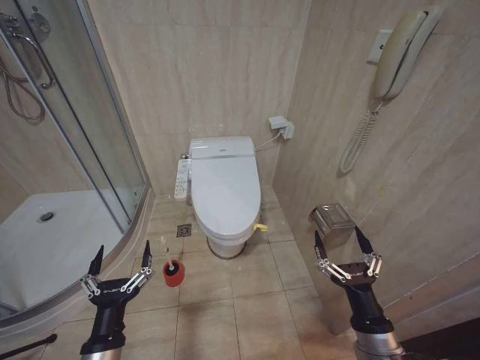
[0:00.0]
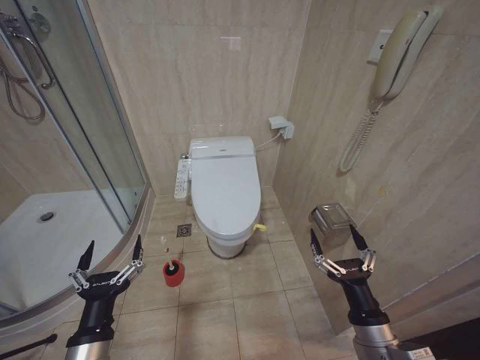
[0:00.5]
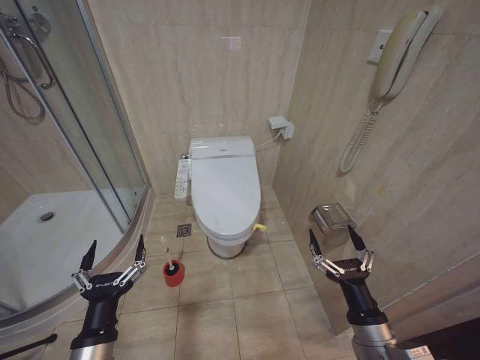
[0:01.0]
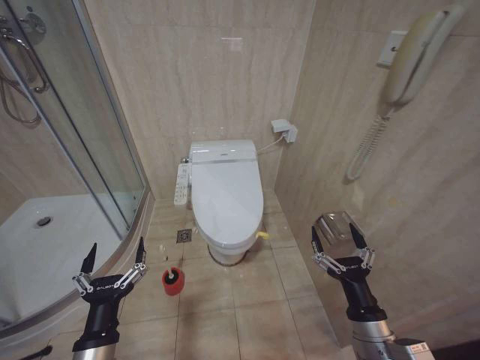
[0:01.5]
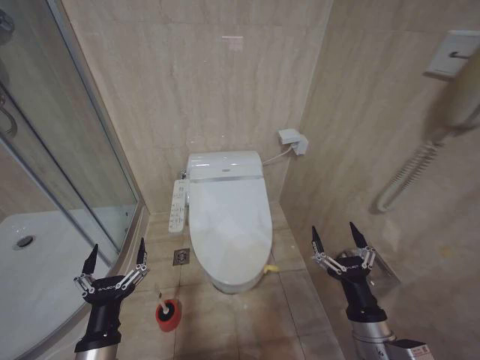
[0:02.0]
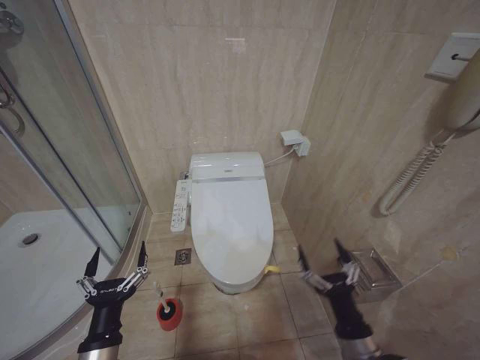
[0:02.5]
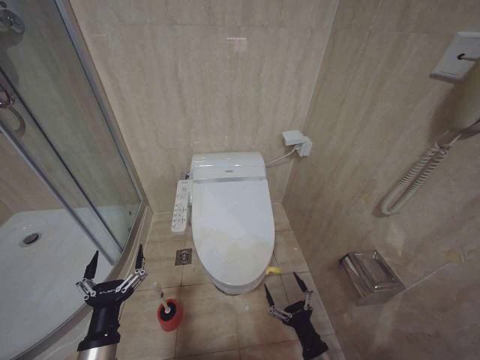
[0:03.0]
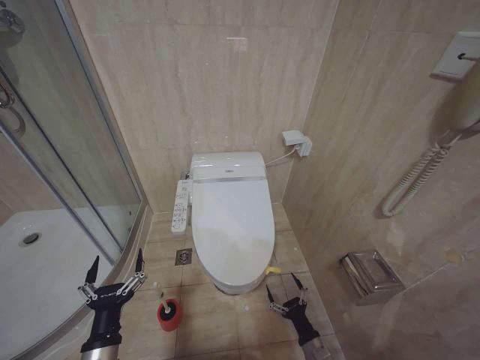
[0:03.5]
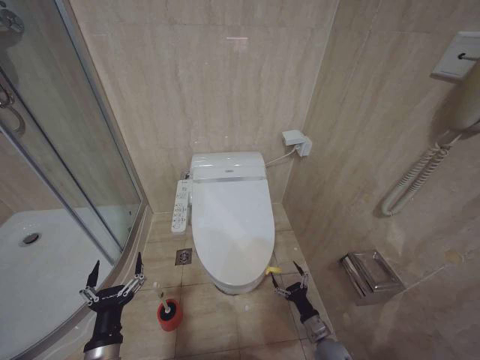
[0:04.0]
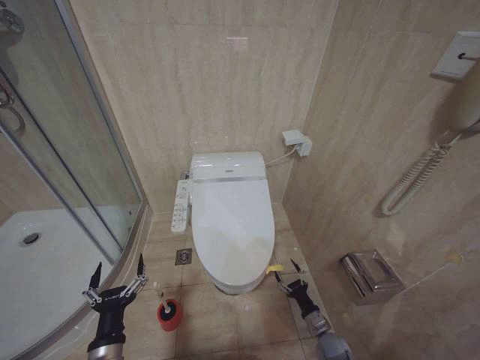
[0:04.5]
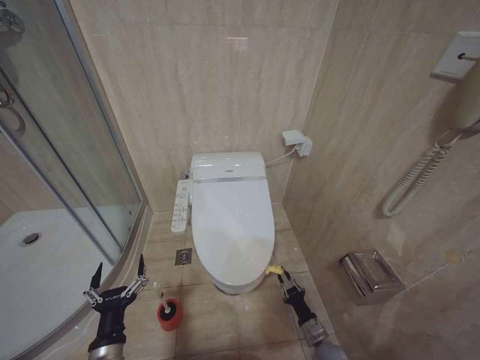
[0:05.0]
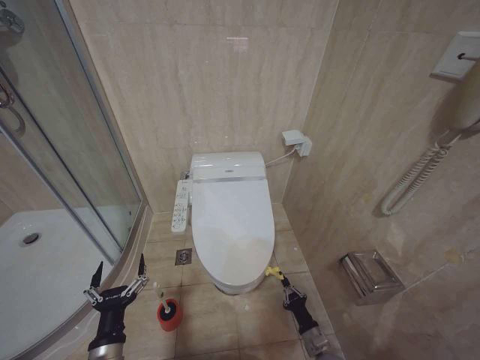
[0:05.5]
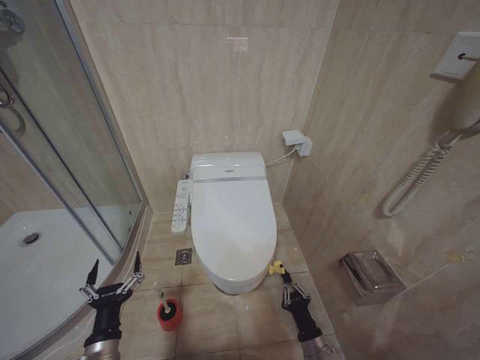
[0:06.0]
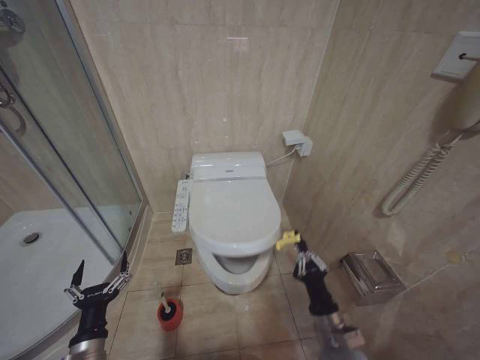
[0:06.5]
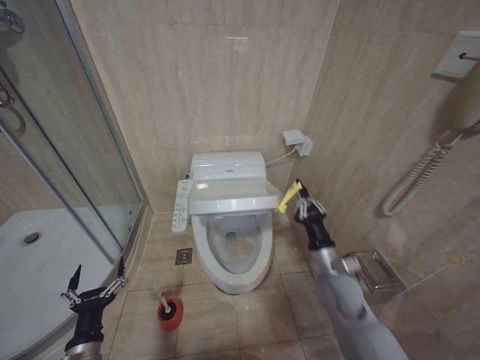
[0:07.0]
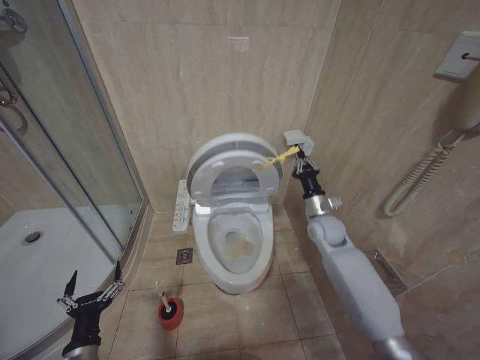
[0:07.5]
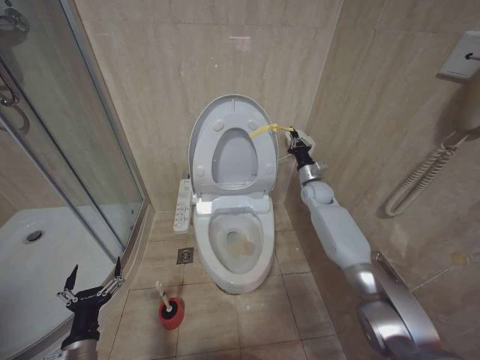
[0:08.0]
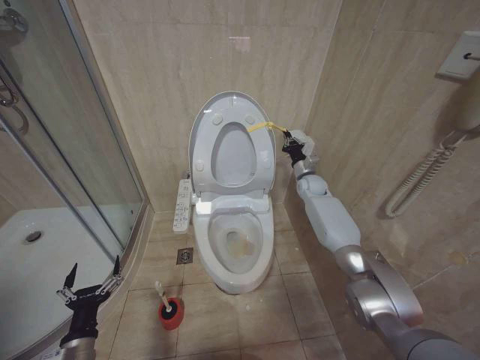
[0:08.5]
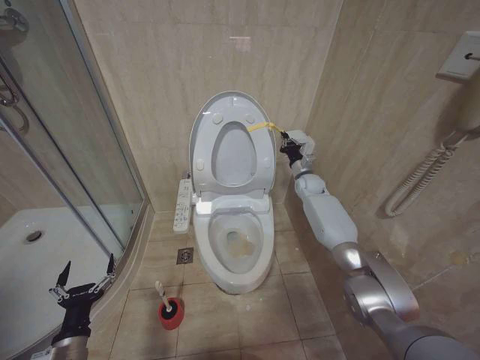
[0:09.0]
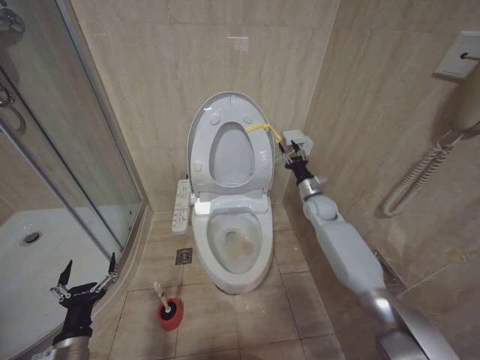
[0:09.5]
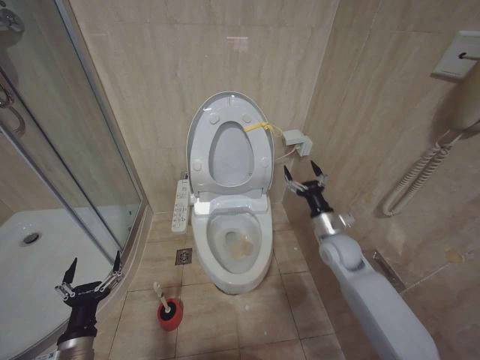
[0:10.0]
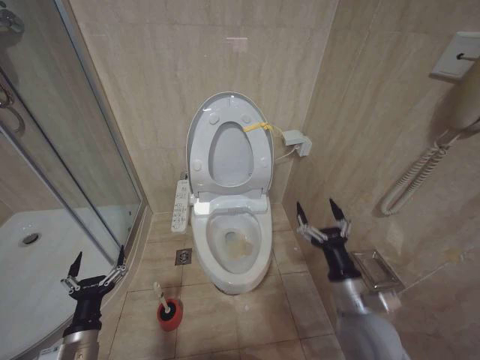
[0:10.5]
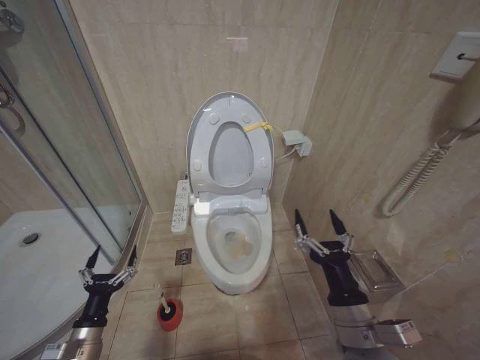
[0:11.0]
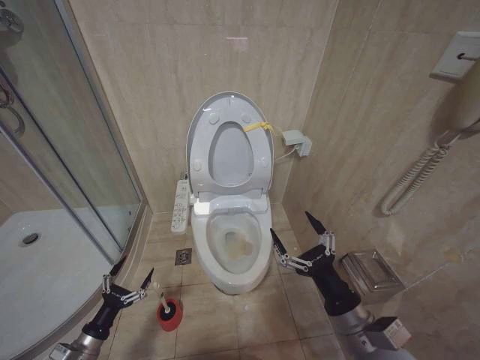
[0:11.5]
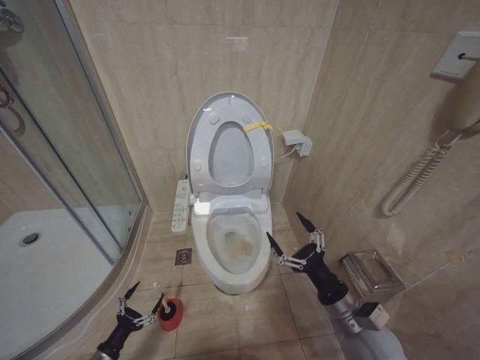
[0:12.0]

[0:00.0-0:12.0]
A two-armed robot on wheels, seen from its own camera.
Task of the whole recording: Open the toilet lid, clean the toilet bowl with a toilet brush, close the toilet lid, and flush.
0:02.0 to 0:04.0: The left gripper travels downward by roughly 5 cm, while the right gripper goes some 30 cm downward.
0:04.0 to 0:06.0: The right gripper shifts roughly 10 cm upward, backward and to the left, and closes.
0:06.0 to 0:08.0: The left gripper goes roughly 5 cm to the left. The right gripper shifts roughly 50 cm forward and upward.
0:08.0 to 0:10.0: The right gripper travels backward by some 15 cm, and opens up.
0:10.0 to 0:12.0: The right gripper heads backward, covering about 25 cm, while the left gripper heads downward and to the left, covering approximately 20 cm.

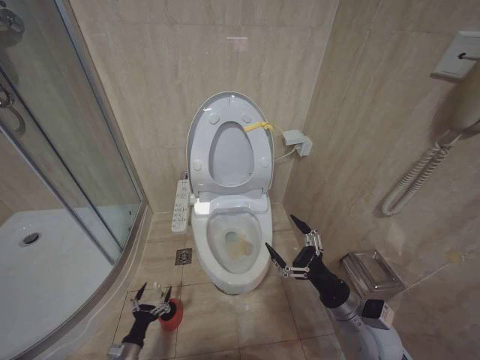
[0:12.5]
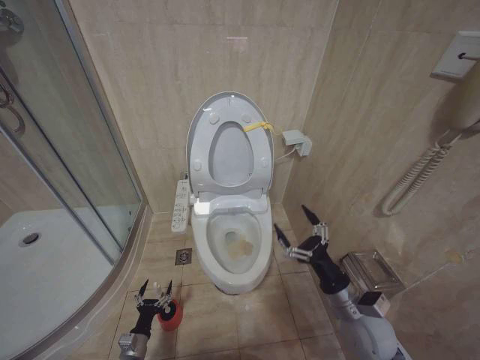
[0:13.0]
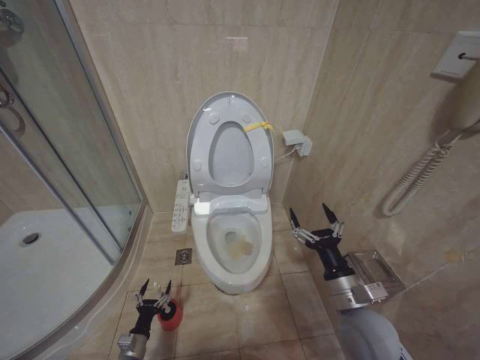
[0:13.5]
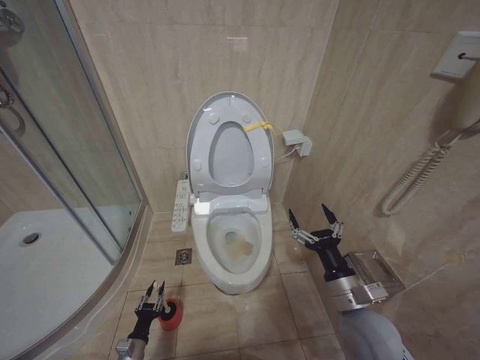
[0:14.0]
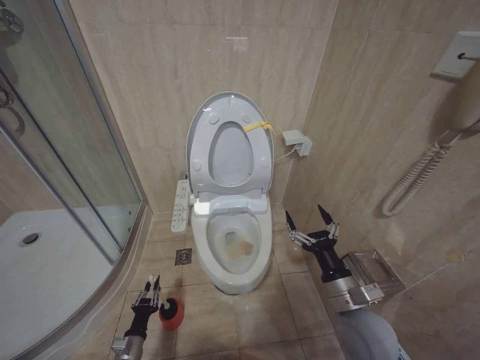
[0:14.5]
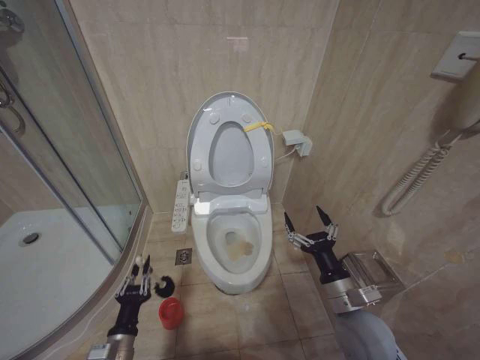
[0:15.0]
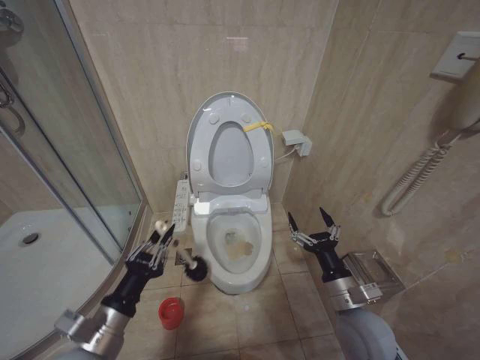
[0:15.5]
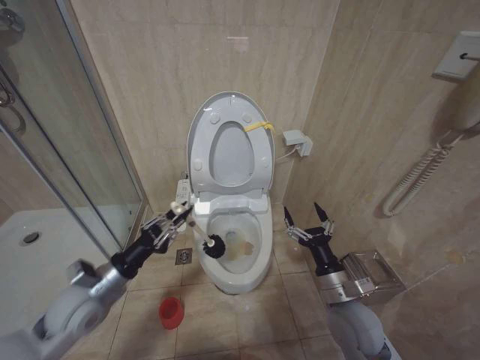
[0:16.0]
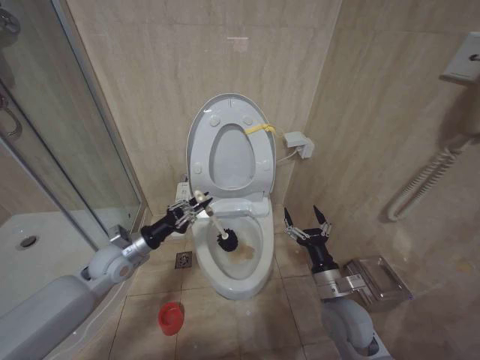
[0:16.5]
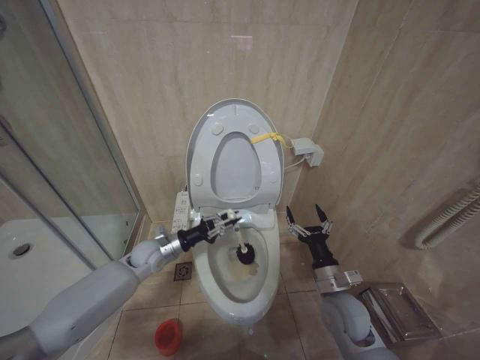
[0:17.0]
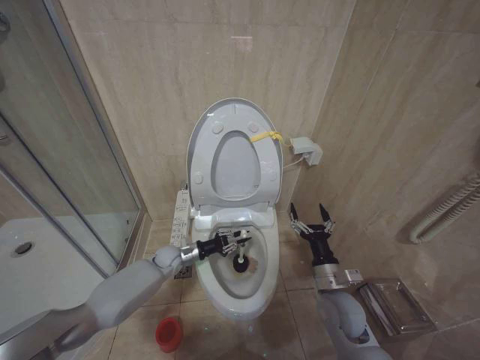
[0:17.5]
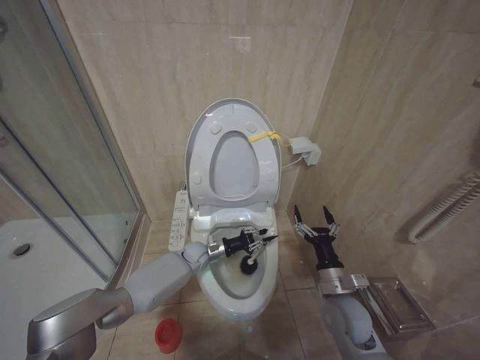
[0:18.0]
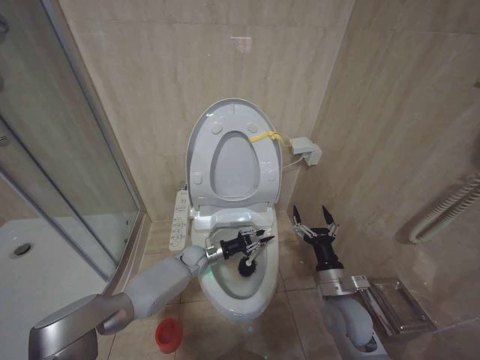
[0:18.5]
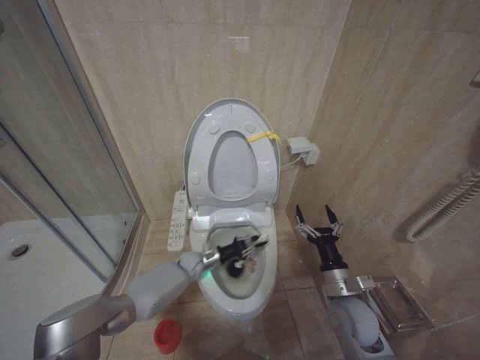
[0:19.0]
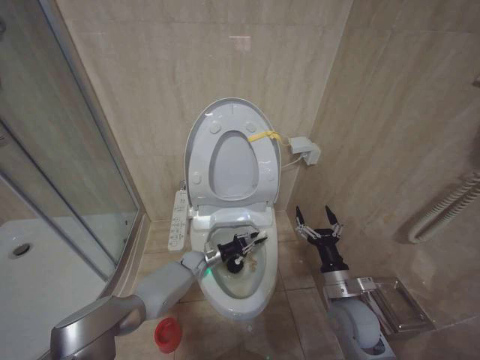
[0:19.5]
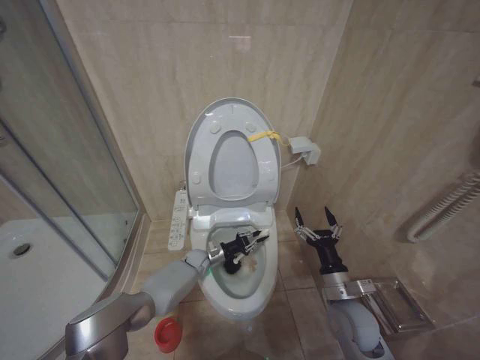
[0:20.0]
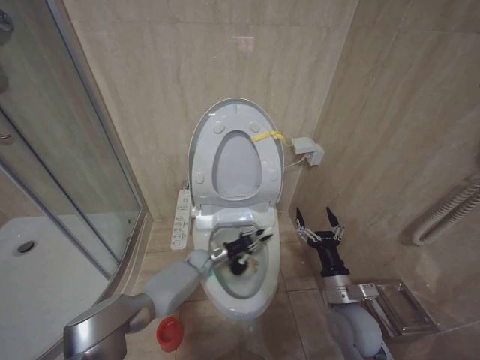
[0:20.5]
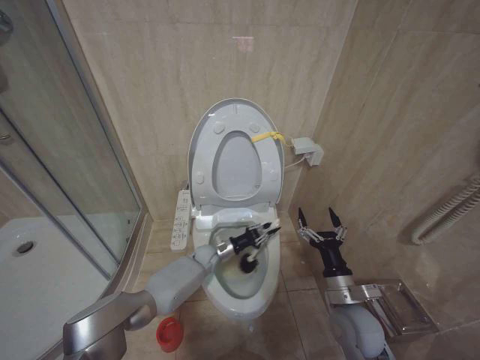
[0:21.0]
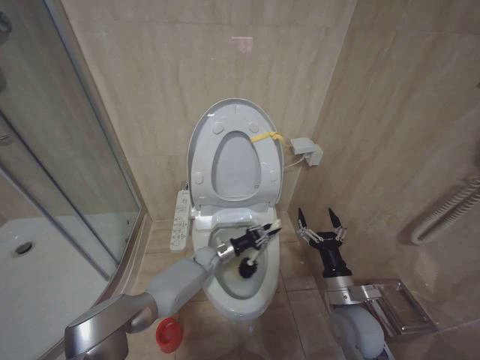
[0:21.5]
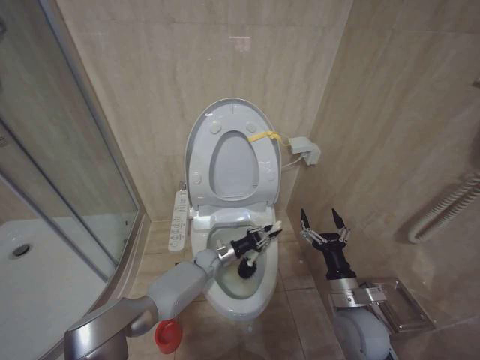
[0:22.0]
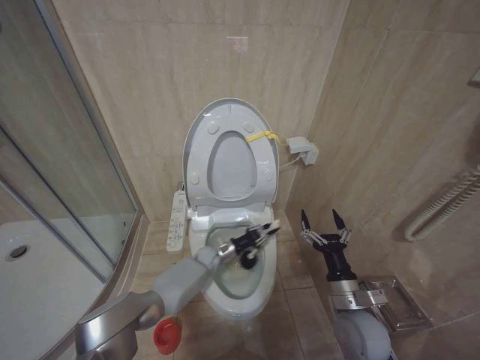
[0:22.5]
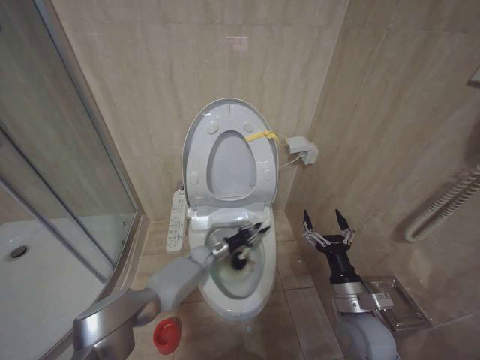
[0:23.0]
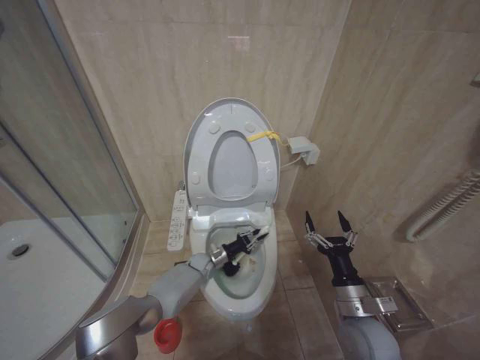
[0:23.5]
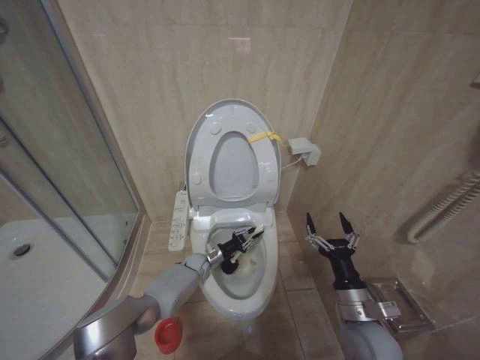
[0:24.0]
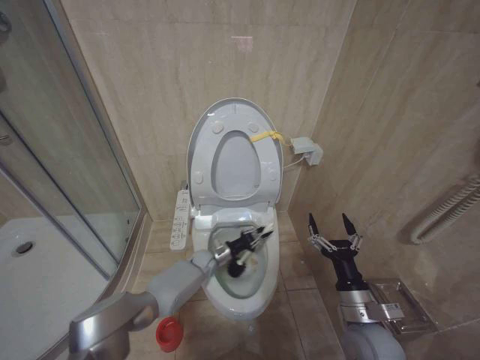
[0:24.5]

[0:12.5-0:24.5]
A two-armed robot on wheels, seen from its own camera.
Task of the whole recording: Open the toilet lid, clean the toilet bowl with a toilet brush, close the toilet lid, and flush.
0:12.5 to 0:14.5: The left gripper closes.
0:14.5 to 0:16.5: The left gripper heads upward and forward, covering some 35 cm. Meanwhile the right gripper ends up roughly 5 cm from where it was.
0:16.5 to 0:18.5: The left gripper goes approximately 30 cm to the right, downward and forward.
0:18.5 to 0:20.5: The grippers move only a little.
0:20.5 to 0:22.5: The left gripper heads to the right, covering approximately 5 cm.
0:22.5 to 0:24.5: The left gripper shifts by approximately 5 cm.

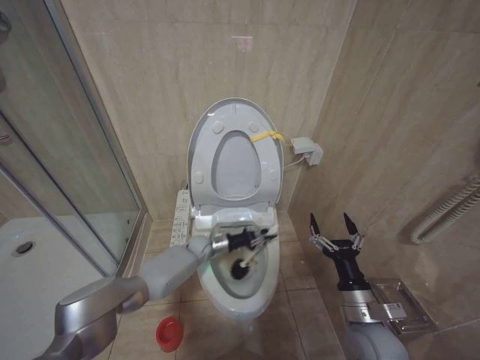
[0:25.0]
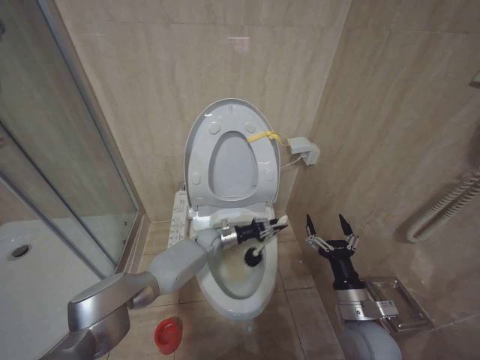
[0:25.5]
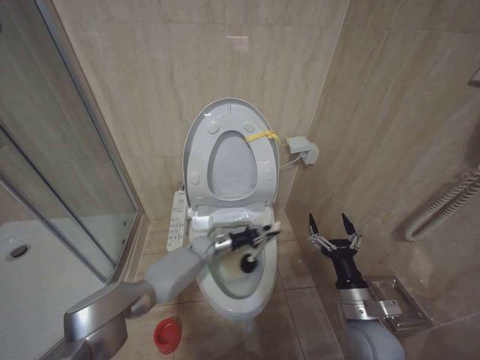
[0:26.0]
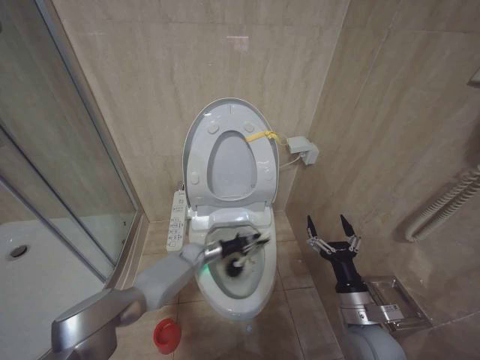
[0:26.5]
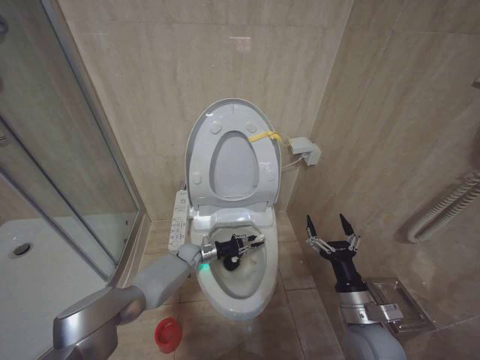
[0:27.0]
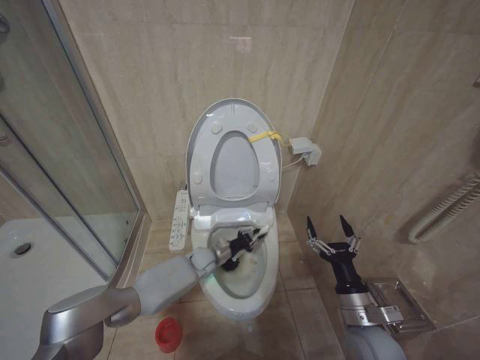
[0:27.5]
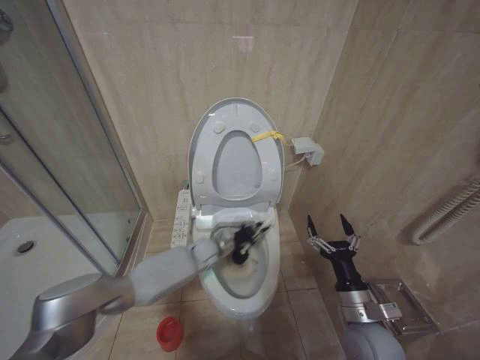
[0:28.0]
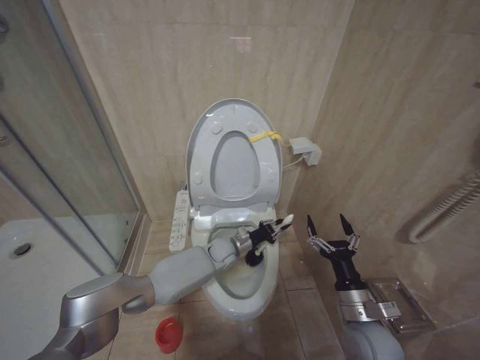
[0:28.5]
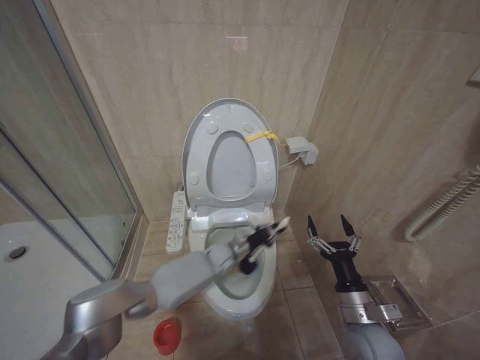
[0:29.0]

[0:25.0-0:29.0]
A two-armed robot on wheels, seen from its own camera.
Task of the whole recording: Open the toilet lid, clean the toilet bowl with a toilet brush, close the toilet lid, and flush.
0:25.0 to 0:27.0: The grippers move only a little.
0:27.0 to 0:29.0: The left gripper is displaced to the right and upward by about 15 cm.
